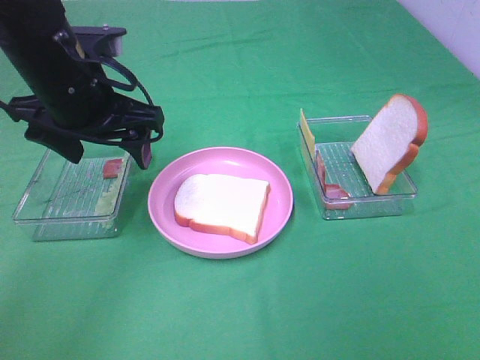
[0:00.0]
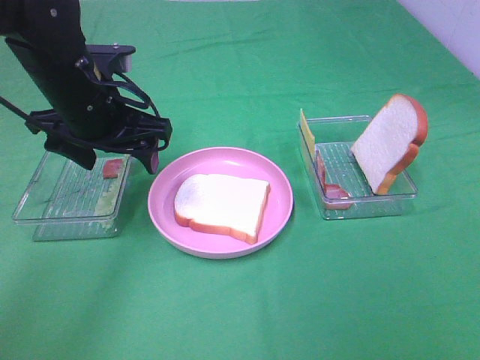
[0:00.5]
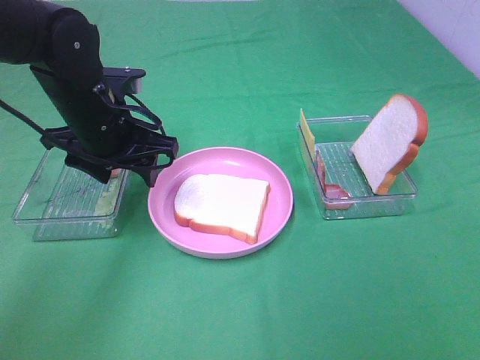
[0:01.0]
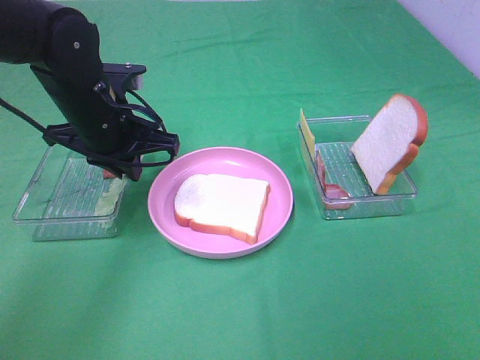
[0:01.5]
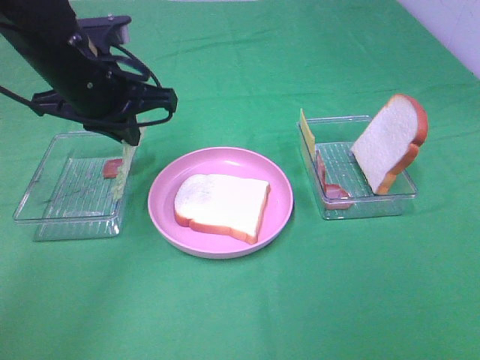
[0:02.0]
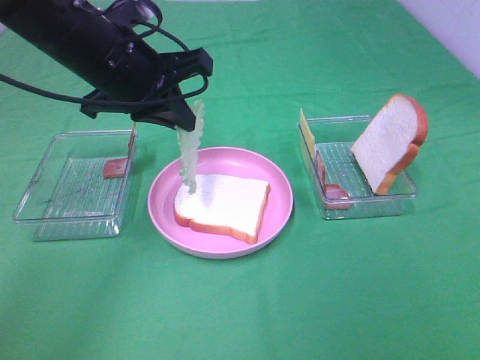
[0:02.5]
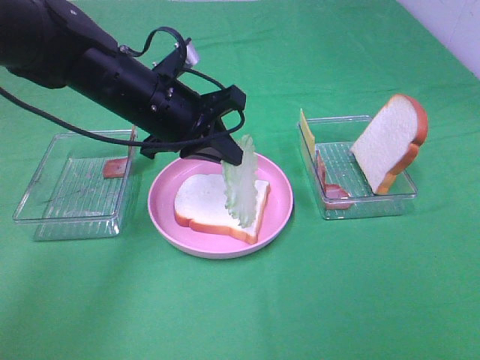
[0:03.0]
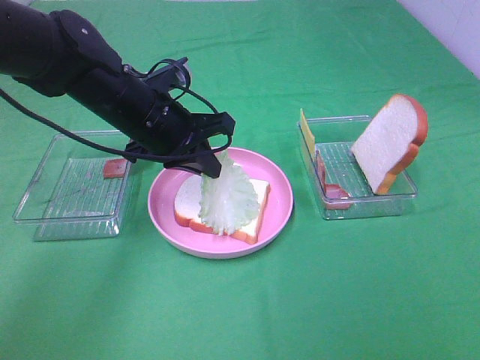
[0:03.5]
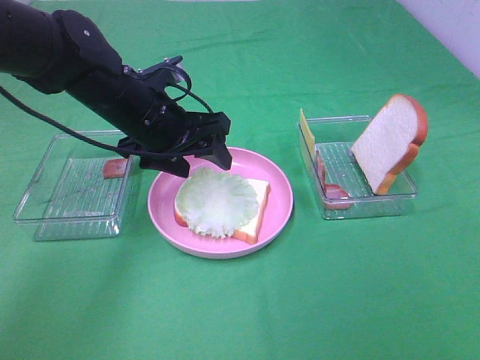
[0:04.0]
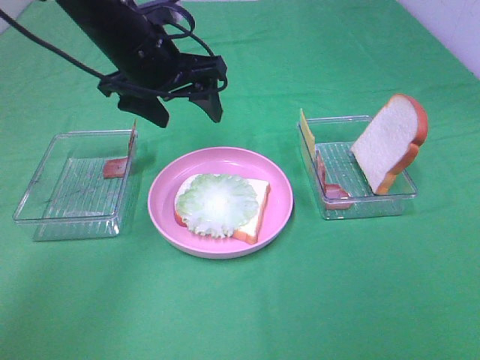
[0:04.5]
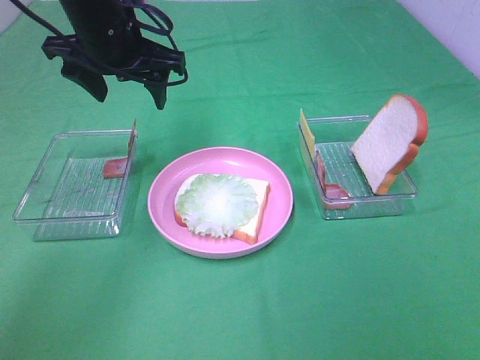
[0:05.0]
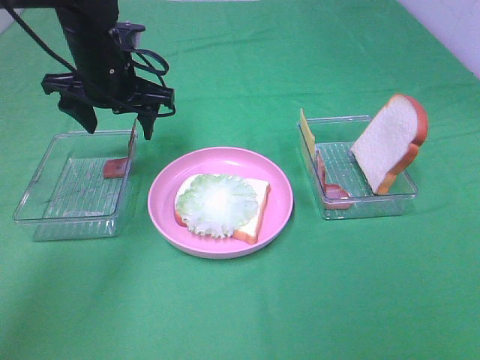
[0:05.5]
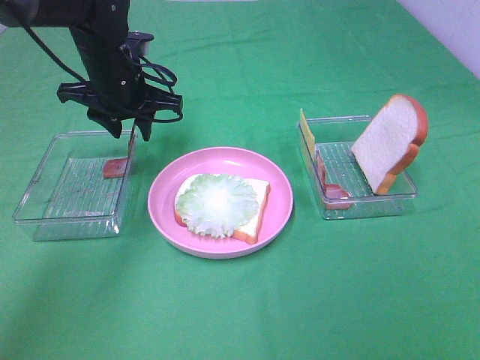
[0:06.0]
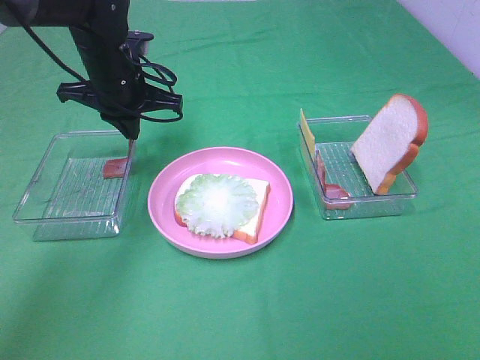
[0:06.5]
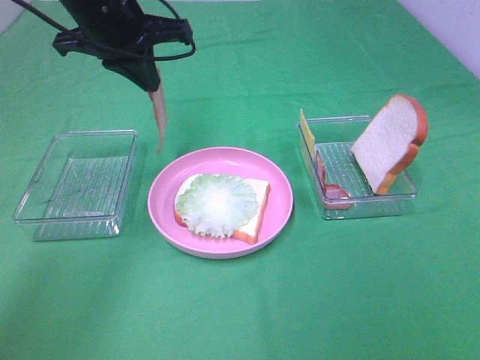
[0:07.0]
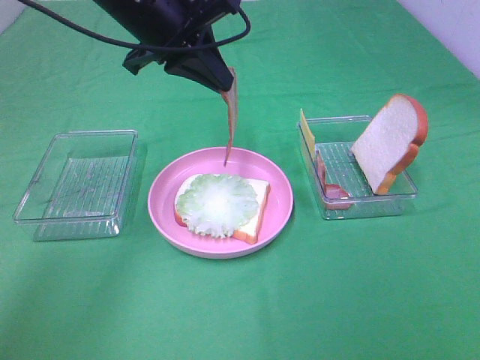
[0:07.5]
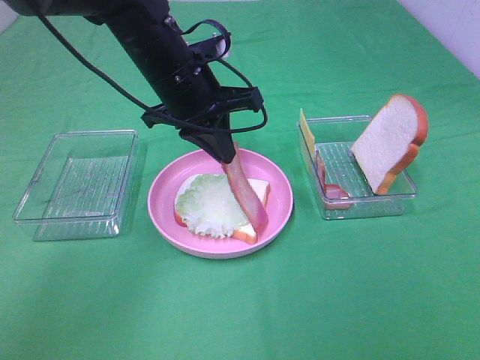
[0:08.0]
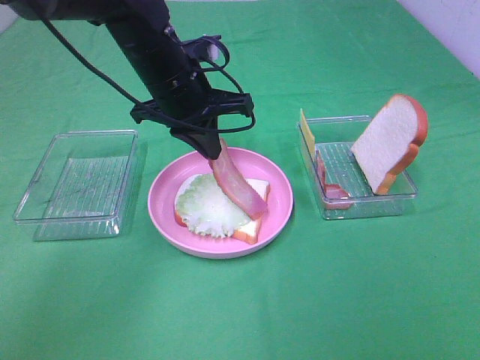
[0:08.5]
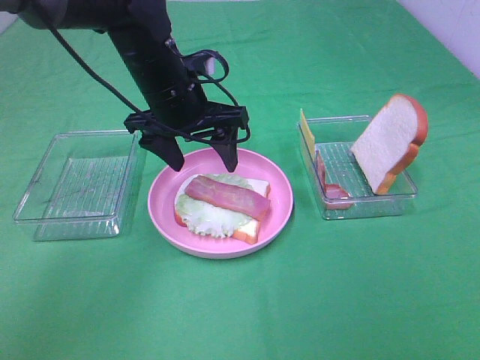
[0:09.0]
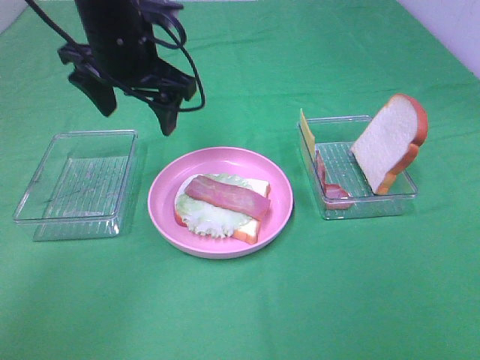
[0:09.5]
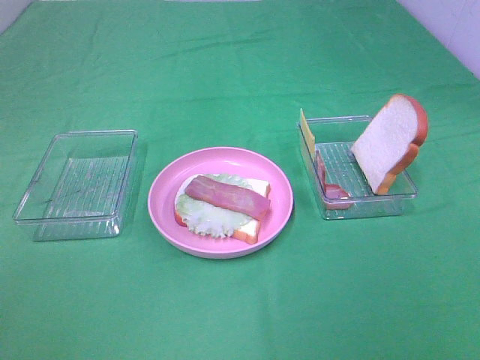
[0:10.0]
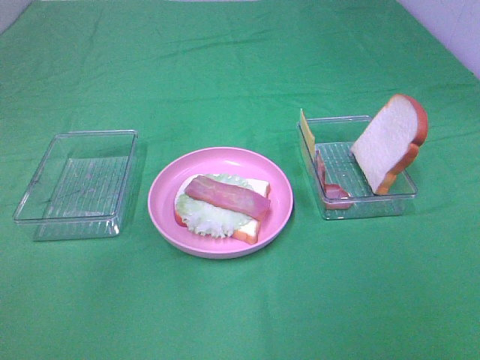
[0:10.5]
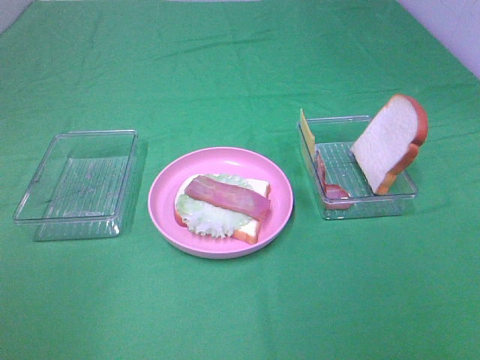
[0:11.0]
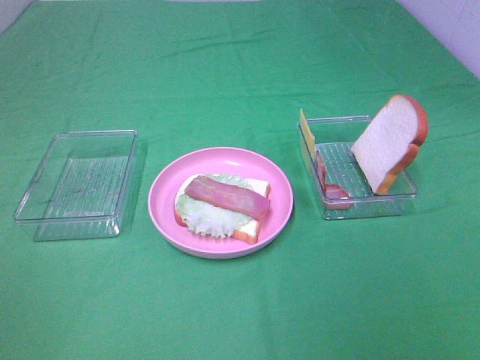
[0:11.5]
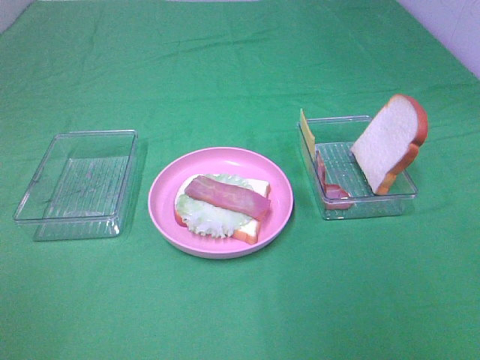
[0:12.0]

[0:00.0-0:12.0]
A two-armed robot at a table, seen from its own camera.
Task of the whole recording: Make sandwiches.
Step, 0:00.0 to 0:01.5: Left hand:grab the lettuce slice.
Step, 0:02.0 to 0:04.0: Left hand:place the lettuce slice on the bread slice.
Step, 0:04.5 to 0:06.5: Left hand:grab the bacon.
Step, 0:07.0 to 0:09.0: Left hand:place bacon on lettuce slice.
0:00.0 to 0:02.0: The left gripper closes its fingers.
0:02.0 to 0:04.0: The left gripper heads downward, covering some 5 cm, and opens up.
0:04.0 to 0:06.0: The left gripper shifts approximately 5 cm forward, and reaches about 10 cm upward, then returns.
0:06.0 to 0:08.0: The left gripper is displaced to the right and backward by about 10 cm, travels upward and back again, some 10 cm each way, and closes up.
0:08.0 to 0:10.0: The left gripper goes some 25 cm upward and to the left, and opens.

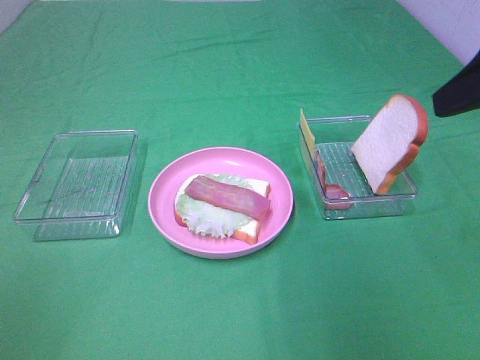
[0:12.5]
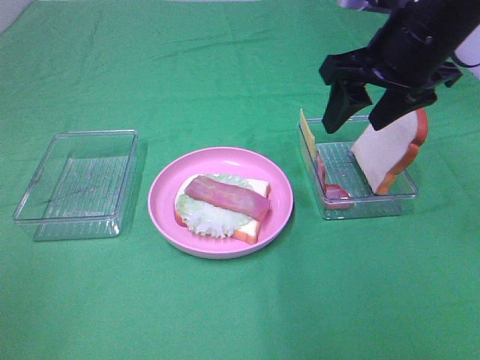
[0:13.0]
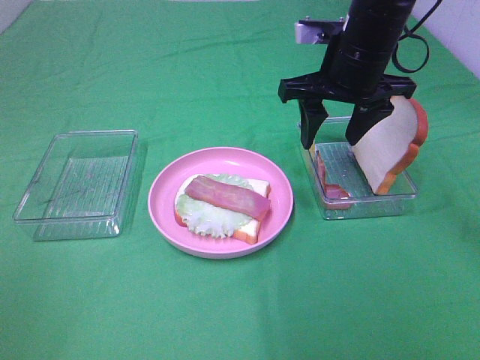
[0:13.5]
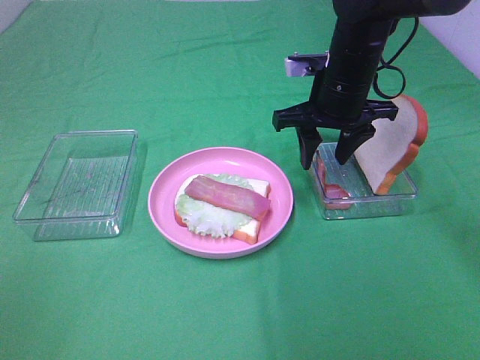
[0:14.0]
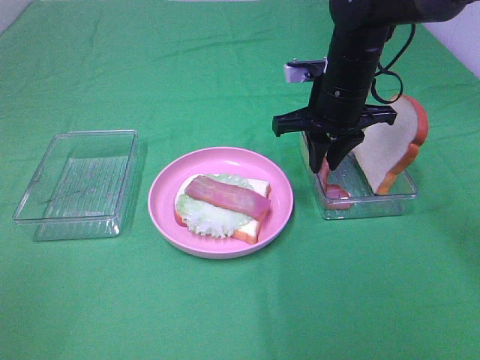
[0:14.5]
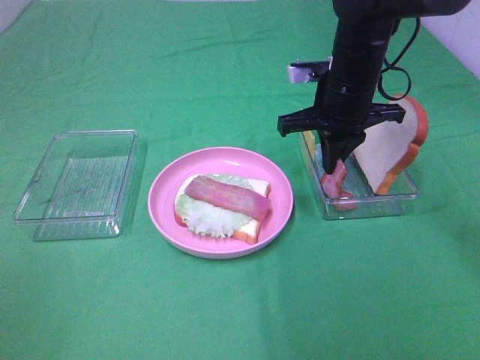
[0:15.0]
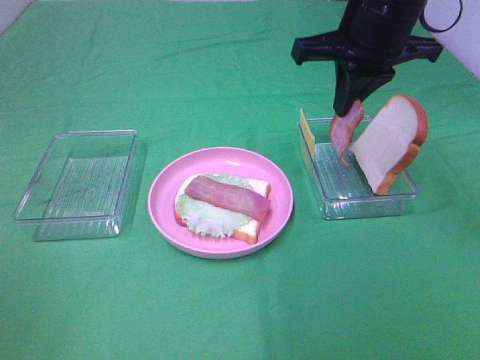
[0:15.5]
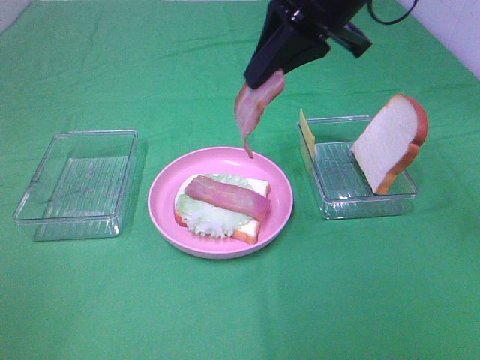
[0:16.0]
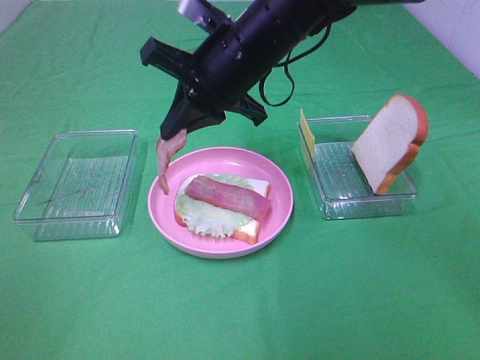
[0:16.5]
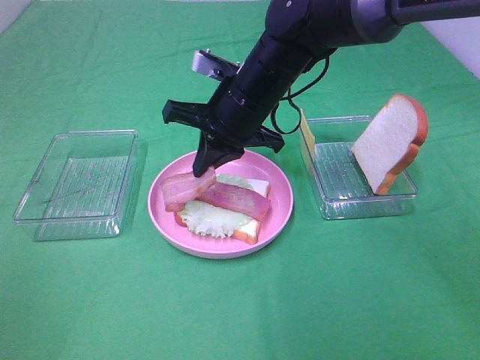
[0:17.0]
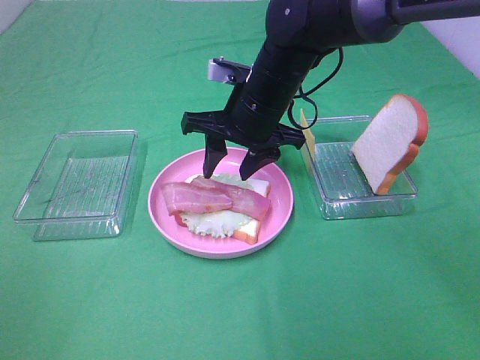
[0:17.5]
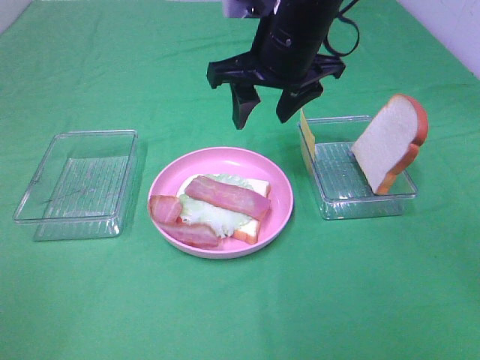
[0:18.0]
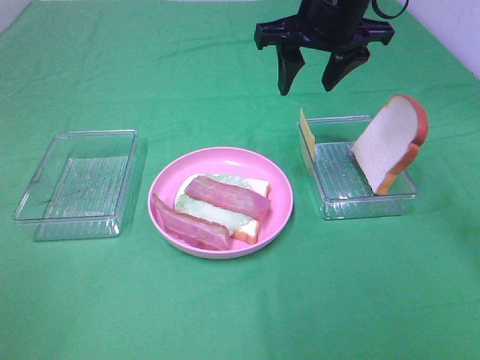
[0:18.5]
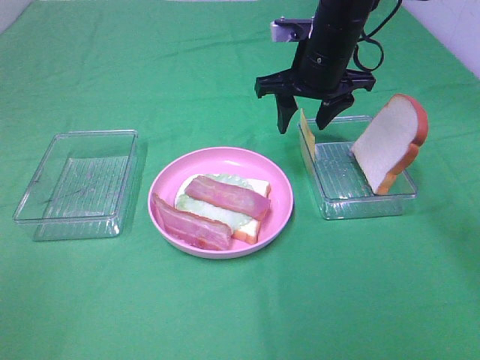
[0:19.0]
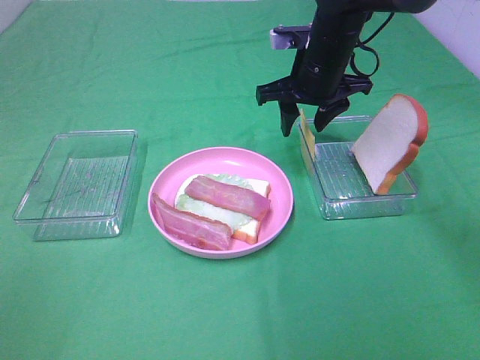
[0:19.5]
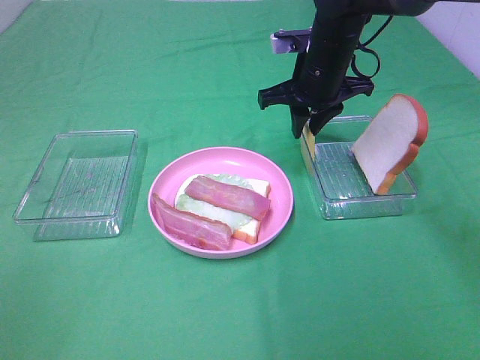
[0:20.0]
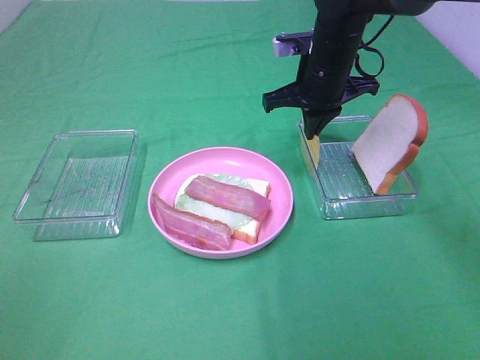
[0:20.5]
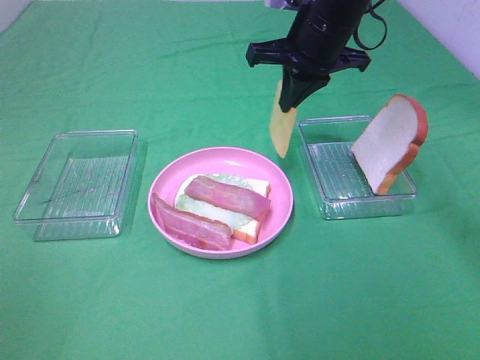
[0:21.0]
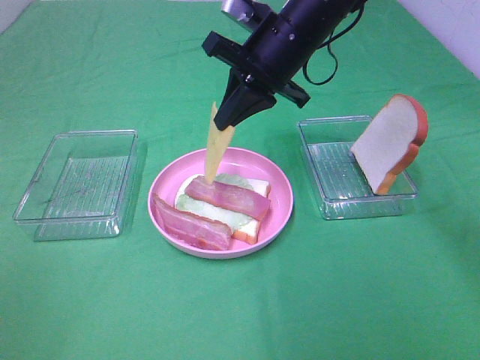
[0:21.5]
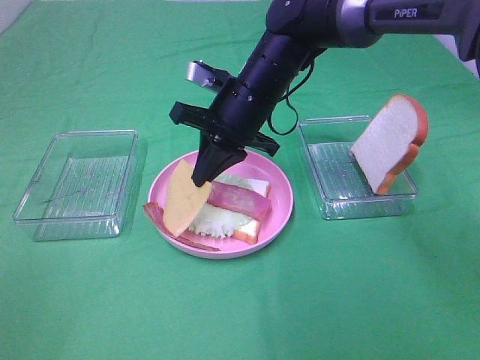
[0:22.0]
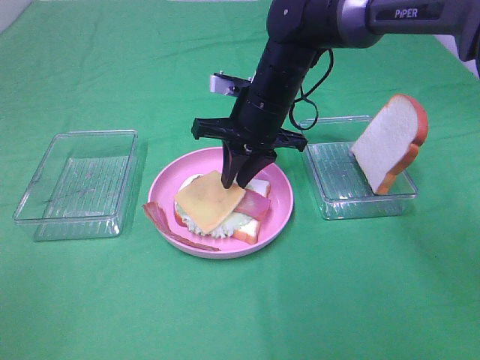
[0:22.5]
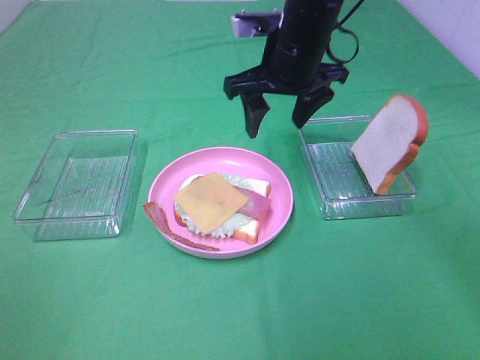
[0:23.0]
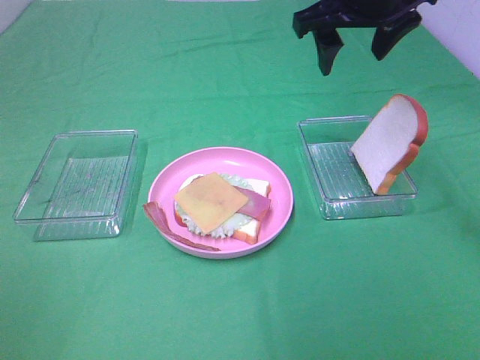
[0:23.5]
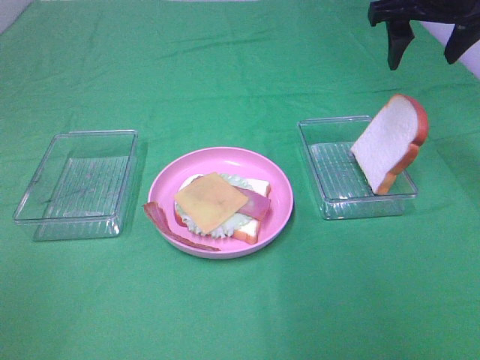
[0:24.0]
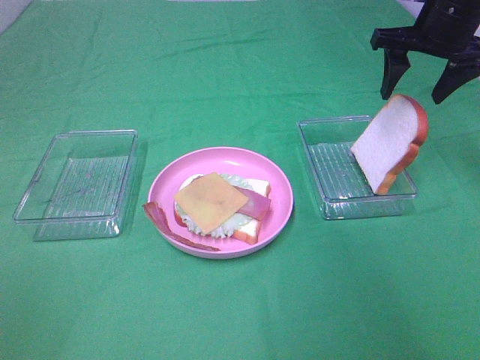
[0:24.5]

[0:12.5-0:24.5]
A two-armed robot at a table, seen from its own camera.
Task of the whole recording: Make sandwiches.
Step, 0:12.5 to 0:15.0: Right hand:grab the bacon.
Step, 0:15.5 to 0:17.5: Right hand:place bacon on bacon.
Step, 0:18.0 to 0:20.0: Right hand:grab the cheese slice.
Step, 0:20.5 to 0:22.5: Right hand:place the cheese slice on top of the bacon.
0:12.5 to 0:14.5: The right gripper goes some 25 cm forward, downward and to the left, and closes its fingers.
0:14.5 to 0:16.5: The right gripper shifts roughly 15 cm to the left and upward.
0:16.5 to 0:18.5: The right gripper moves to the right, roughly 10 cm, and opens up.
0:18.5 to 0:20.5: The right gripper is displaced downward by roughly 10 cm, and closes.
0:20.5 to 0:22.5: The right gripper is displaced to the left by some 10 cm, goes upward and returns, approximately 5 cm each way, and opens its fingers.
0:22.5 to 0:24.5: The right gripper heads to the right and upward, covering about 25 cm, and opens its fingers.

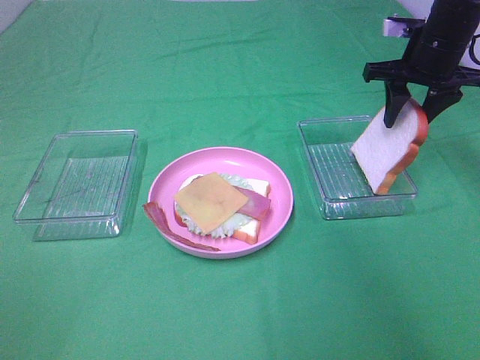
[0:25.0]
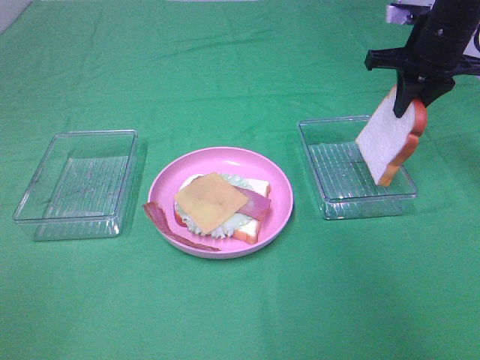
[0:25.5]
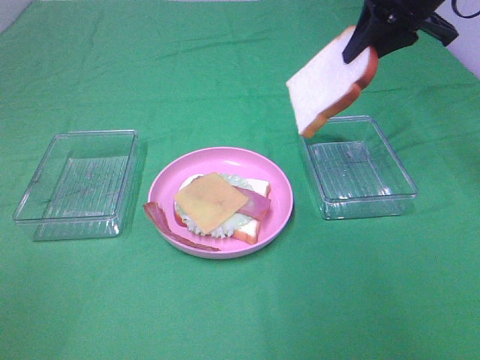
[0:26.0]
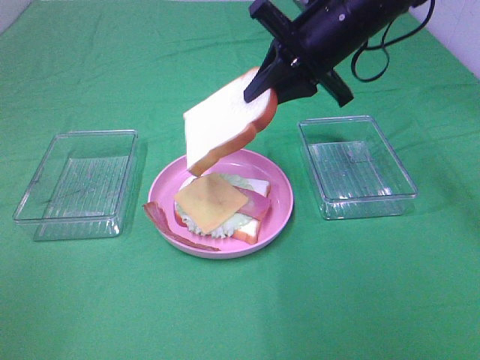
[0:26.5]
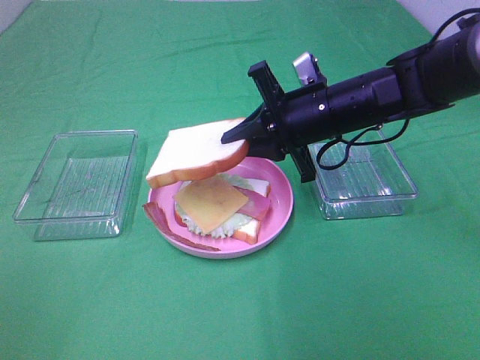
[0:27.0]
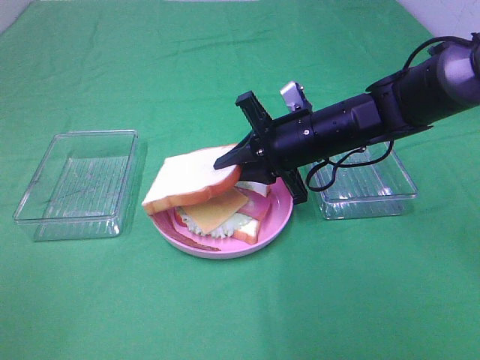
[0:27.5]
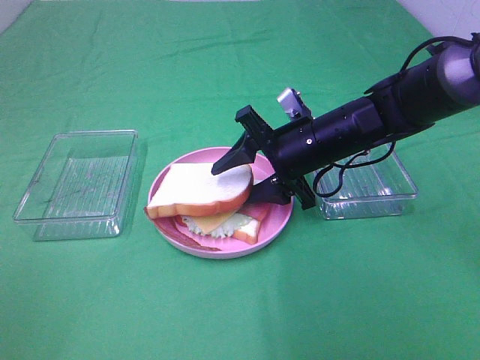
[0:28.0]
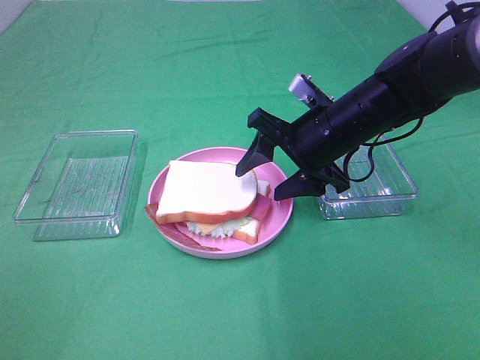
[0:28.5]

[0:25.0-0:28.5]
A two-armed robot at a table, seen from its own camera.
Task of the whole recording: Make sandwiches.
Step, 0:25.5 to 0:28.5: Right hand:place the bread slice on the cheese slice.
0:25.0 to 0:27.0: The right gripper heads to the left, backward and downward, covering some 20 cm.
0:27.0 to 0:28.5: The right gripper opens.
